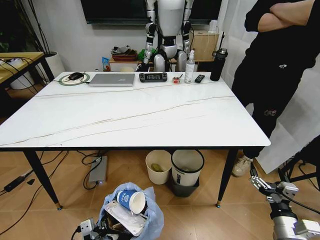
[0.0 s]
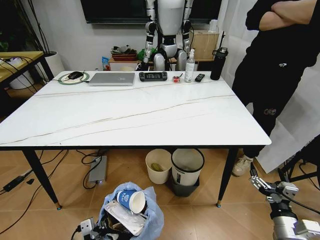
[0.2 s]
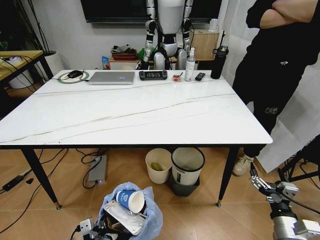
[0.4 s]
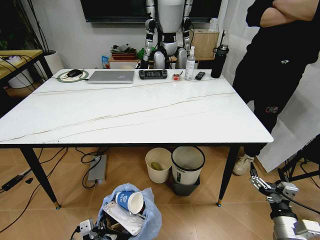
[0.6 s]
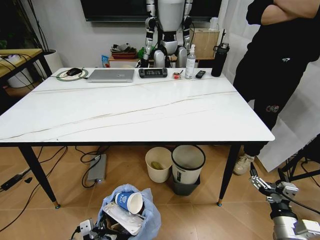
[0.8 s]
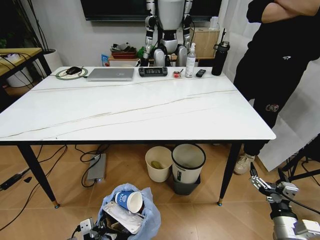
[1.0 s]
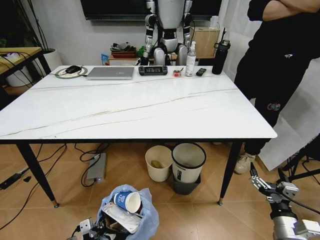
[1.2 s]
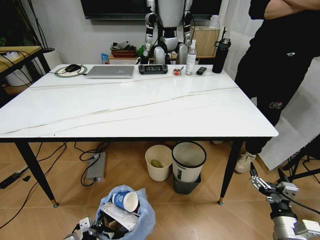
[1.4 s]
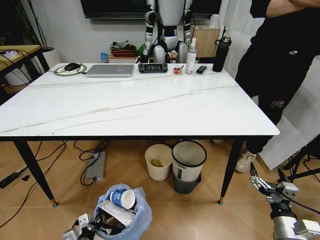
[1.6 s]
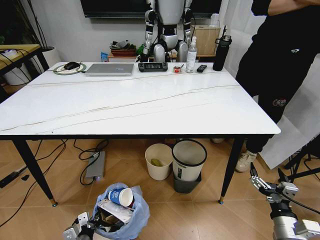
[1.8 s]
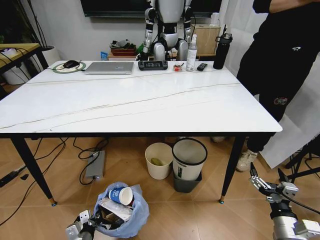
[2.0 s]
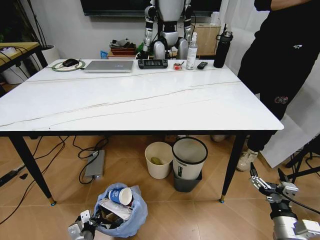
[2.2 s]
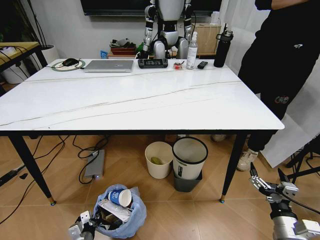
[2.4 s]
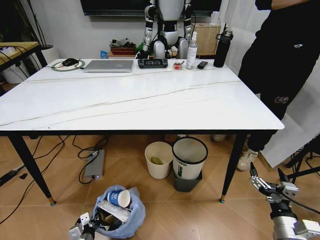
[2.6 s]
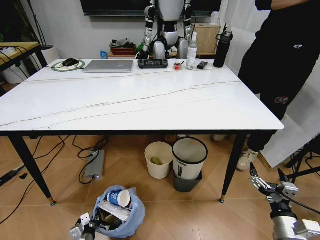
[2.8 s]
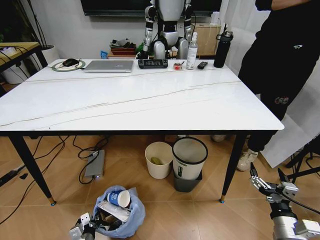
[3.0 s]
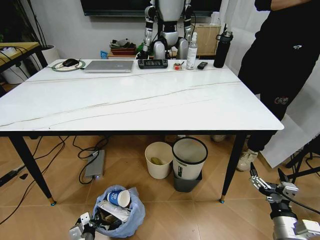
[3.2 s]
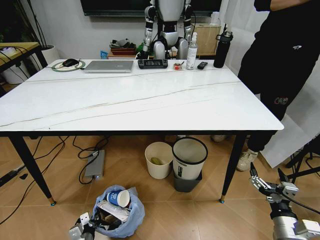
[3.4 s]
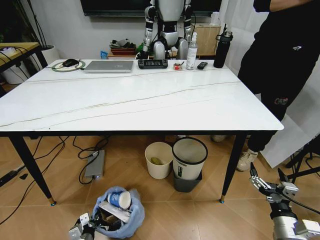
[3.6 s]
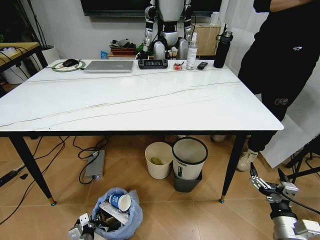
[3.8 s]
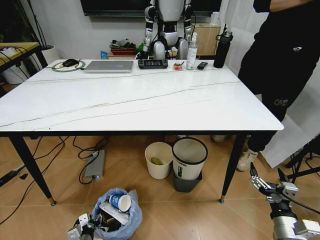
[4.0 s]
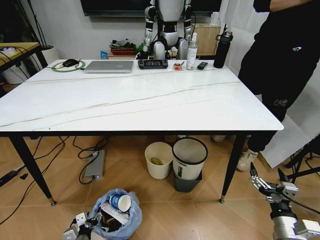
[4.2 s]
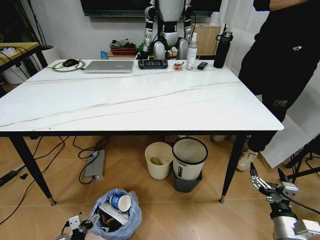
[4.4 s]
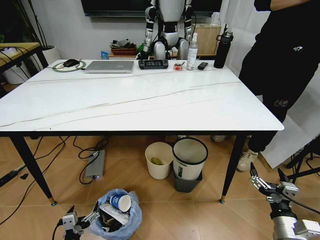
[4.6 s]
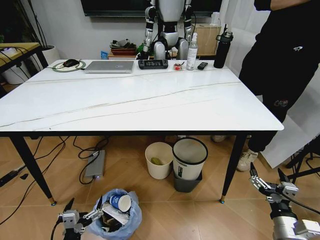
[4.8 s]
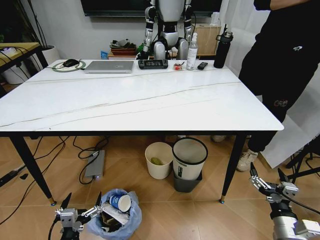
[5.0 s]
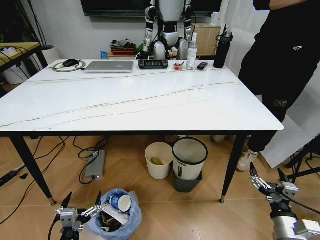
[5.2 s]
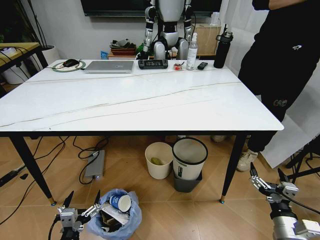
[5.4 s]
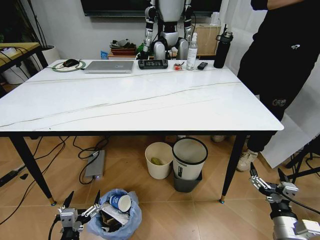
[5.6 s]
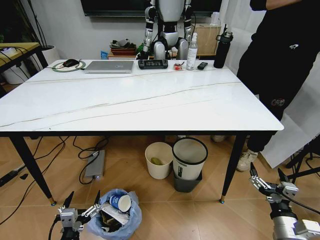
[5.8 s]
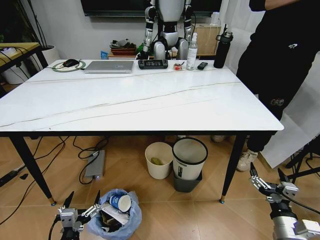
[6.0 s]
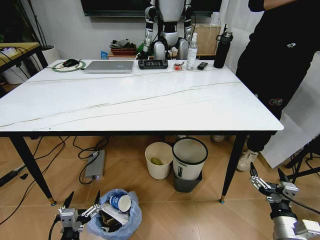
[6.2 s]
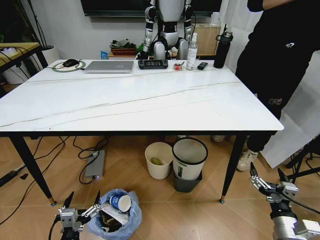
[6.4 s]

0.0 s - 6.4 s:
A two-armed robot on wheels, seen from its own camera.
Task of the whole recording: Pick up the trash bin and place the trash from the table into it.
0.0 s - 1.6 s: The left gripper travels downward and forward by about 10 cm.
1.6 s - 3.2 s: The left gripper travels downward by about 10 cm.
3.2 s - 4.8 s: The left gripper moves upward and backward, approximately 20 cm, and opens its fingers.
4.8 s - 6.4 s: There are only small adjustments of the grippers.
